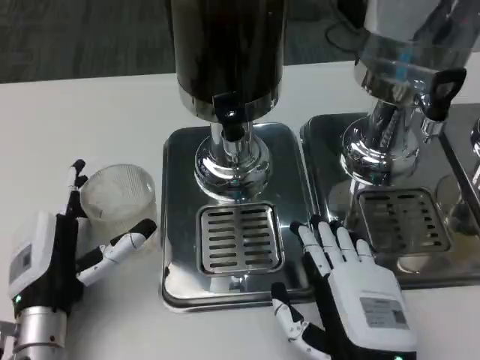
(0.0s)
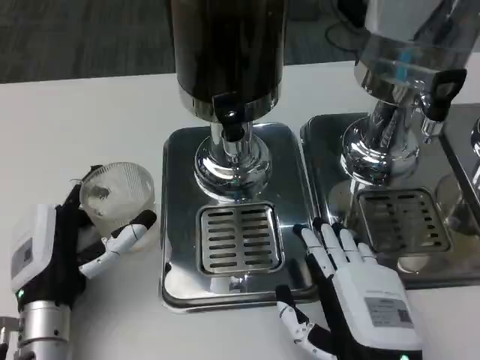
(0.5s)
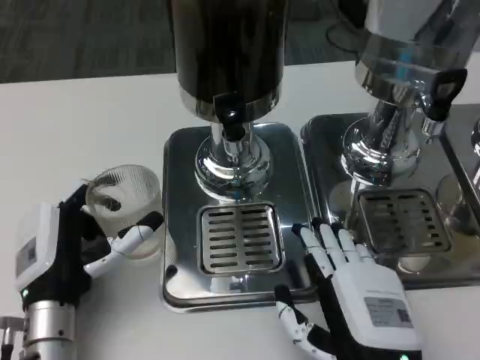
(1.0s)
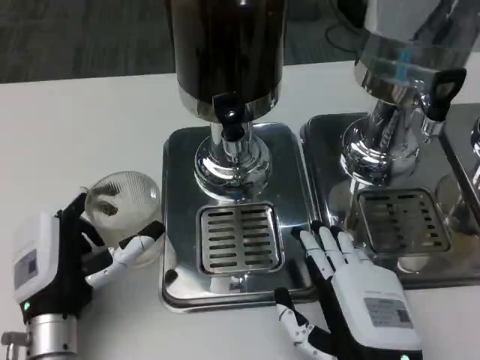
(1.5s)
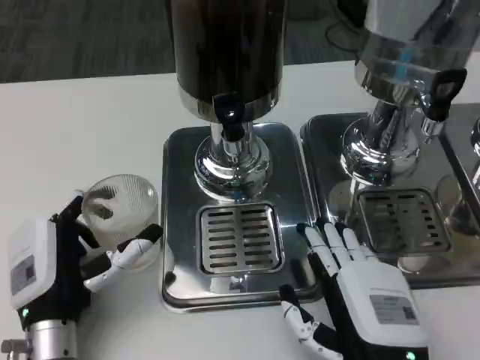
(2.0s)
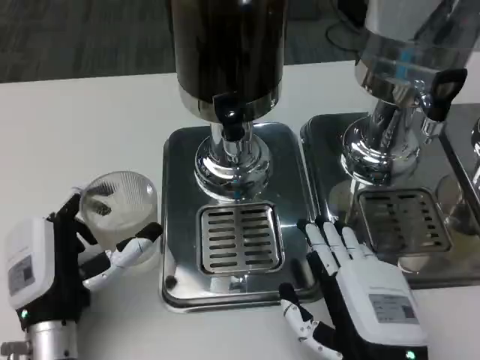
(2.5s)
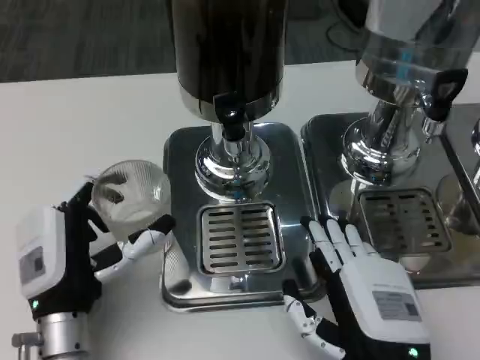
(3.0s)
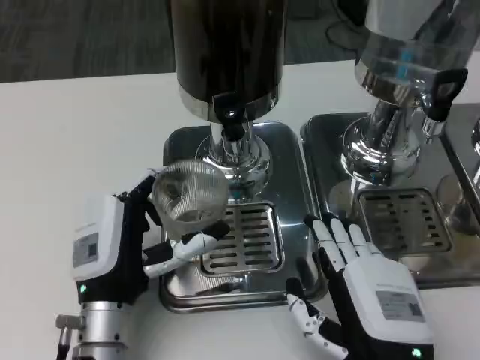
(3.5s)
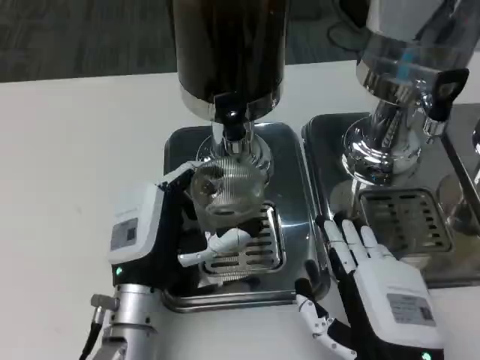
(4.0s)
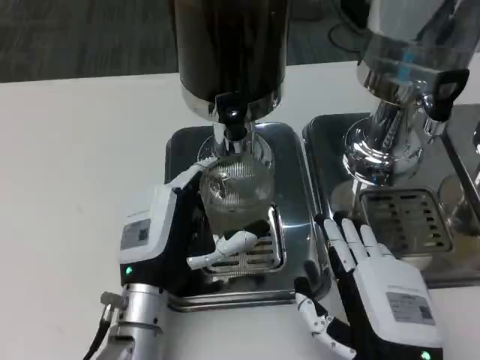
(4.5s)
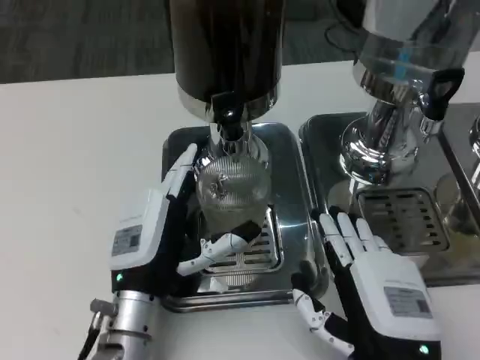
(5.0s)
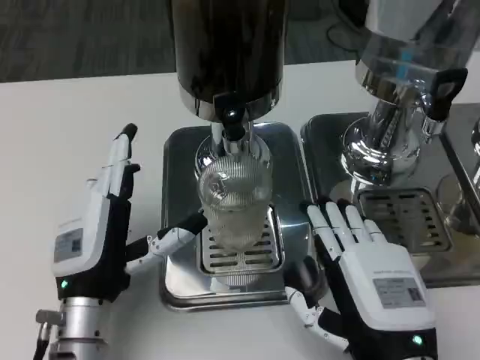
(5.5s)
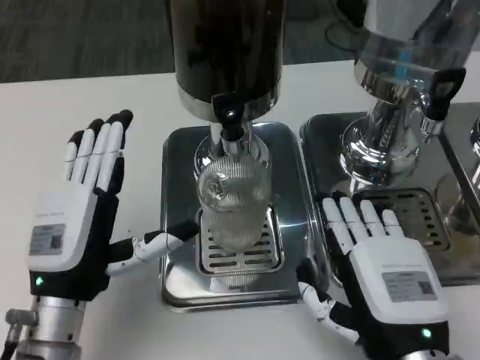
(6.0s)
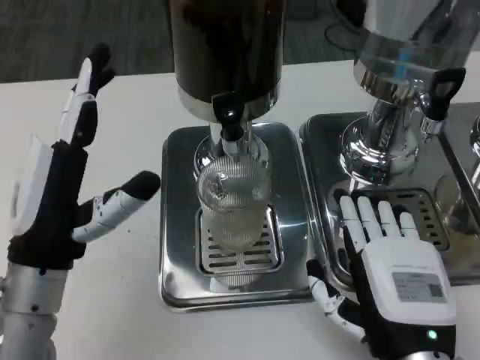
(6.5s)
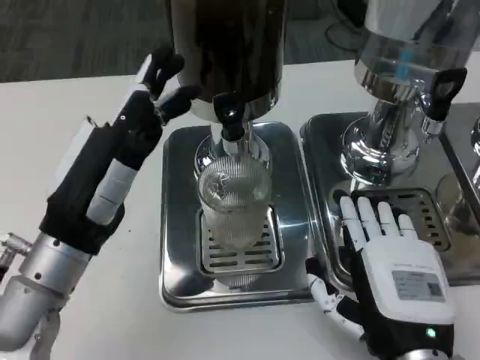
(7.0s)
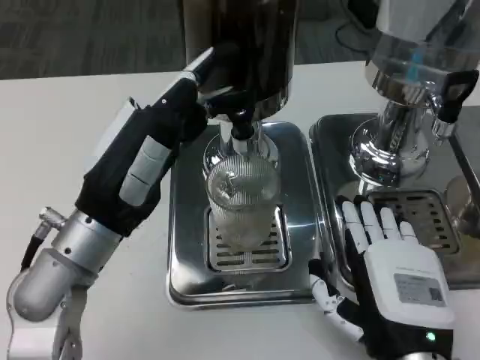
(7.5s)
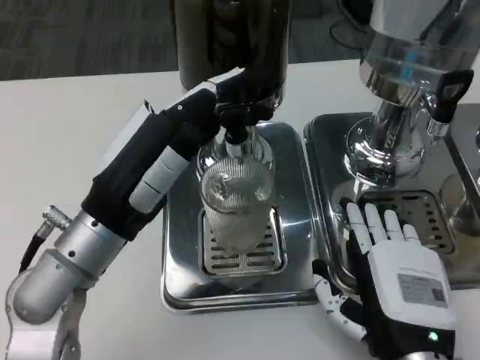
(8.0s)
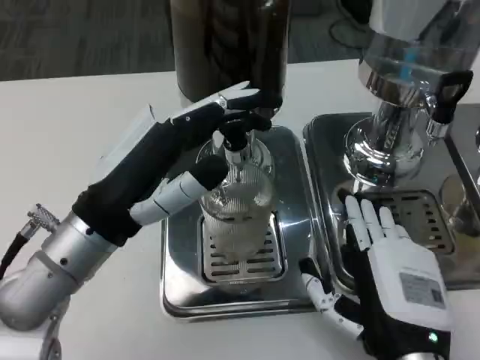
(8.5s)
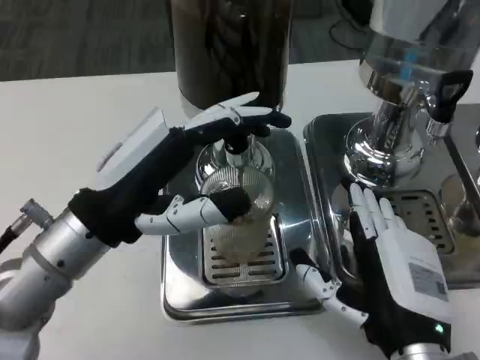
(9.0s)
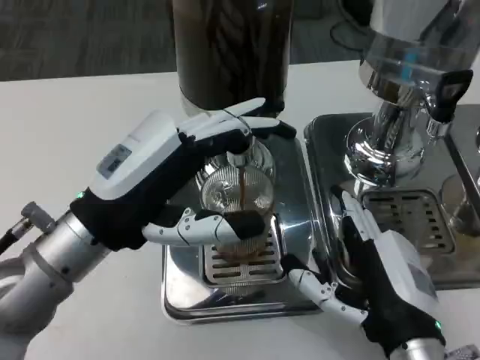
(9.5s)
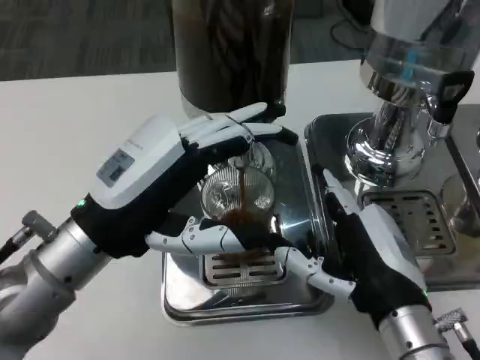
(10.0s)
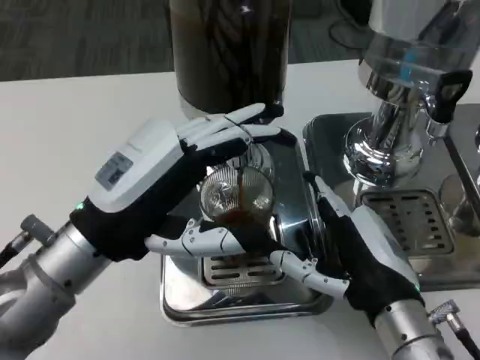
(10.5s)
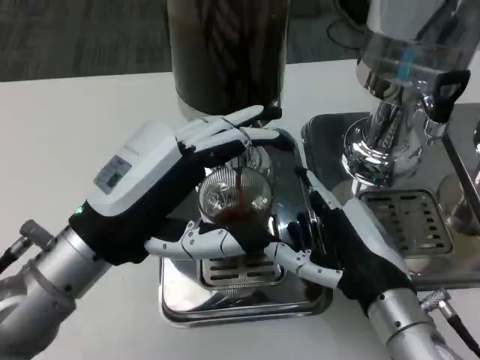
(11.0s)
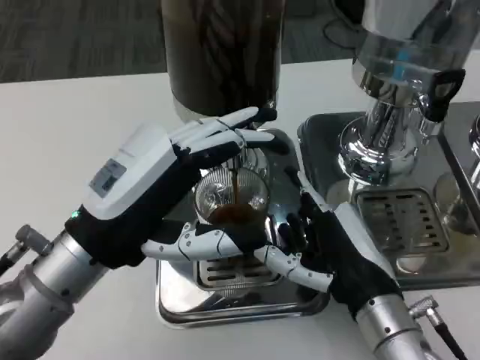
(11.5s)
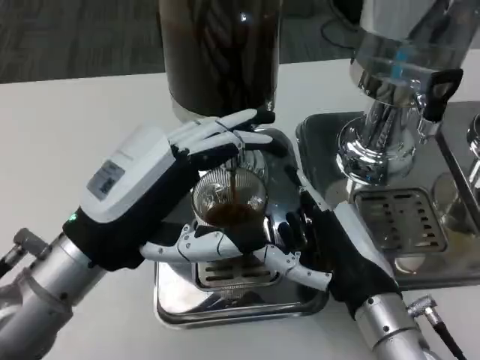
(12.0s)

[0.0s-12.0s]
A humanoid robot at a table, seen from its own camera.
Task of the whole recording: Grasp the cup under the faucet to collect the drink, then remove the cup.
0.0s to 2.0s: The hands make only small movements.
2.0s to 4.0s: The left hand goes about 5 cm to the right.
4.0s to 6.0s: The left hand moves to the left, about 5 cm.
6.0s to 8.0s: The left hand travels upward by about 10 cm.

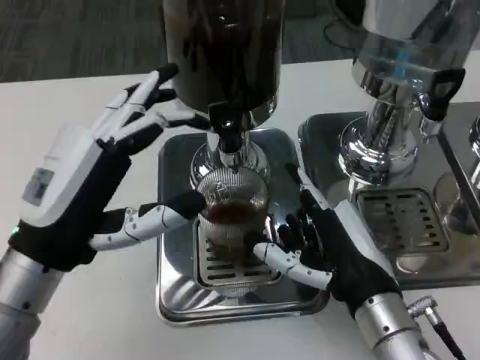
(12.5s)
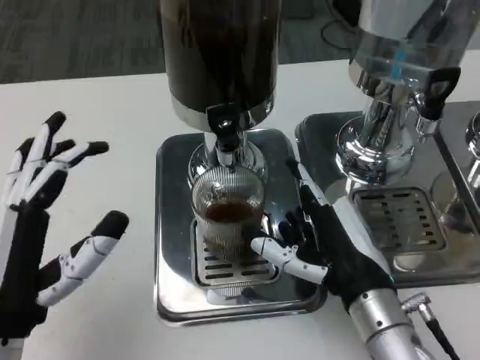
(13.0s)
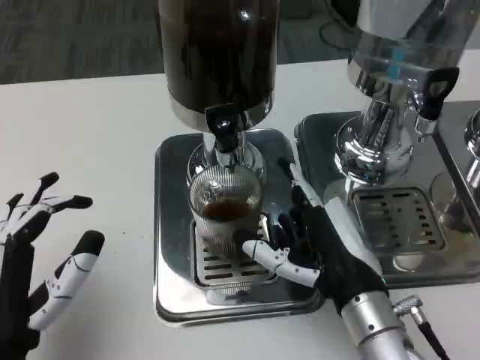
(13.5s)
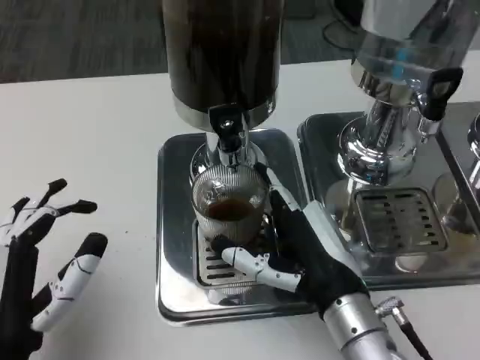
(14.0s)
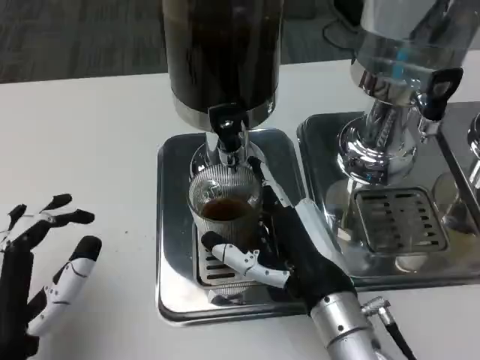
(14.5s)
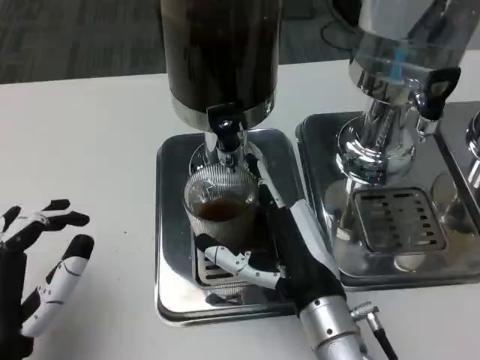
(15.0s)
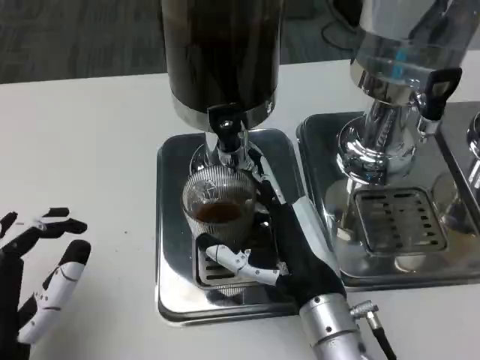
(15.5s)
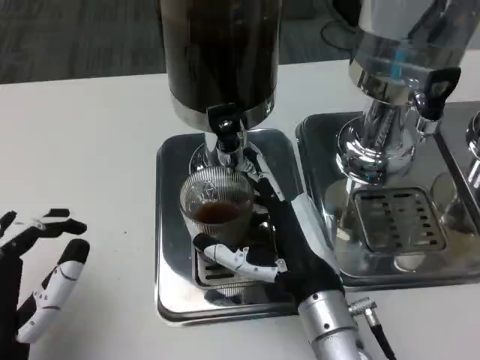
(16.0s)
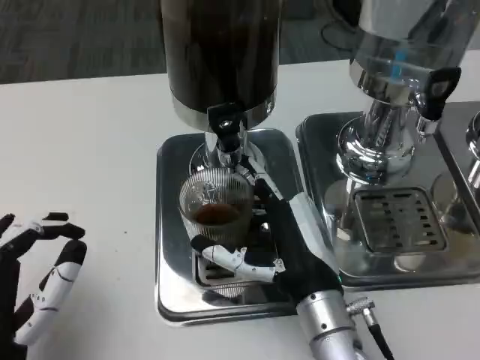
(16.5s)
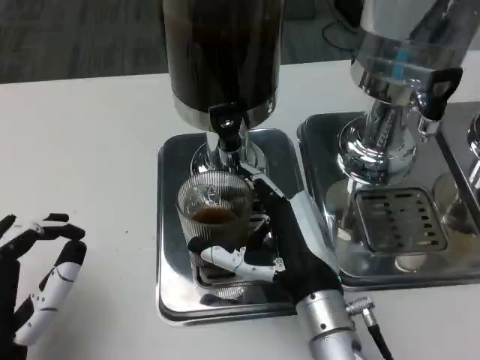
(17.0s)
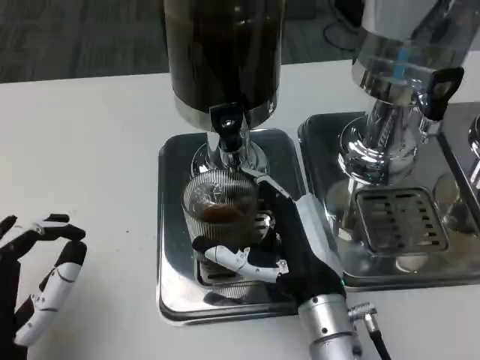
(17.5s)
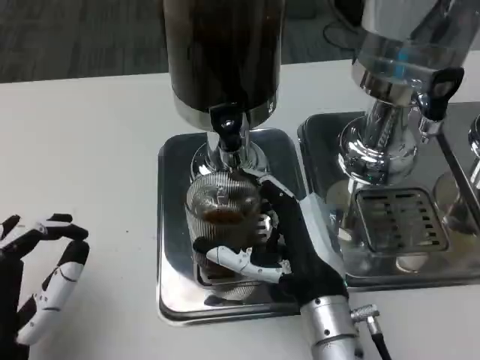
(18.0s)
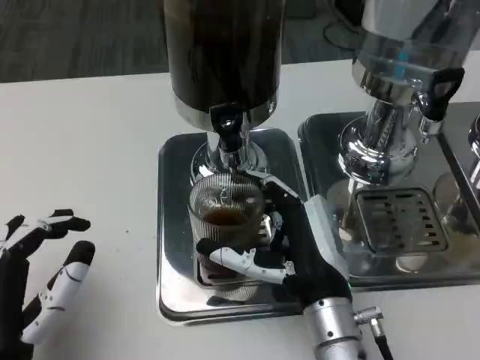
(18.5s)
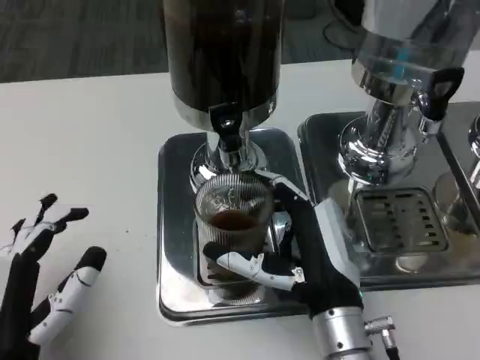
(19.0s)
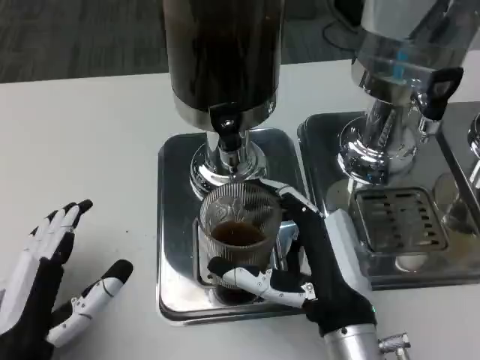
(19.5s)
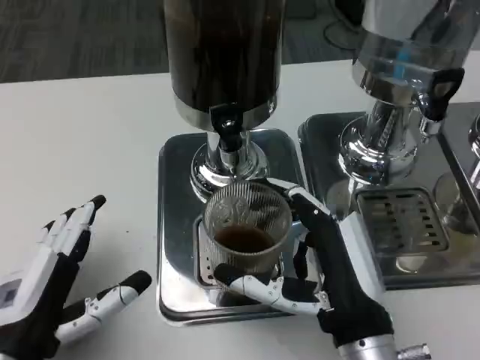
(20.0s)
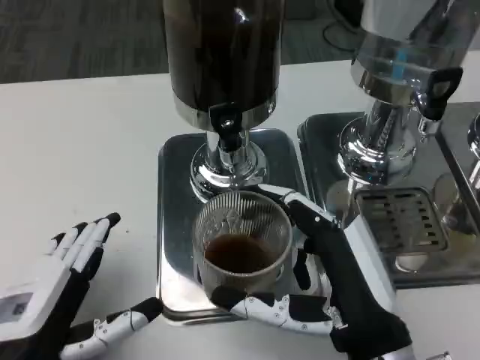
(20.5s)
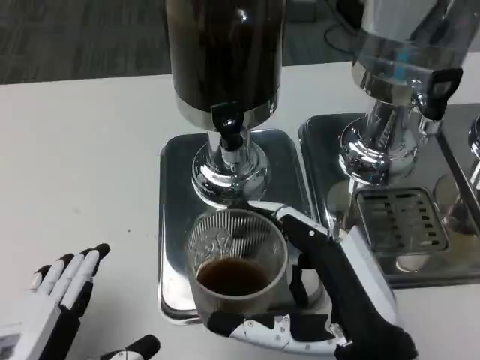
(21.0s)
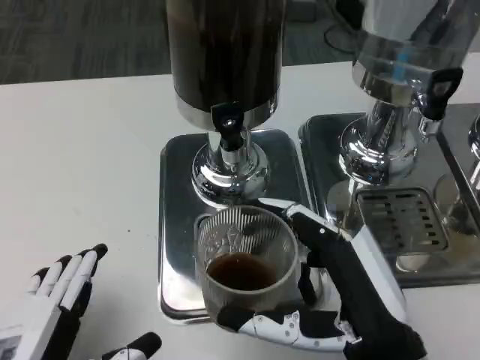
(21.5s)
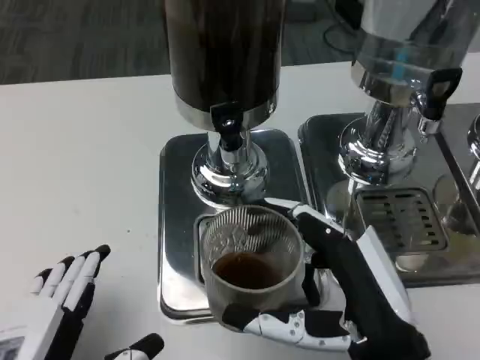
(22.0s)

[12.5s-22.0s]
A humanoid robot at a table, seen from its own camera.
Task of the whole recording: Grasp the cup under the faucet to collect the drink, then remove the cup.
12.5s to 14.5s: The left hand travels downward and backward by roughly 10 cm.
14.5s to 18.0s: The hands make only small movements.
18.0s to 20.0s: The right hand shifts by approximately 5 cm.
20.0s to 22.0s: The left hand moves backward, about 5 cm, while the right hand shifts by some 5 cm.

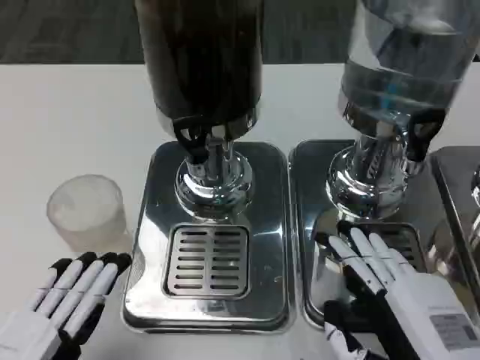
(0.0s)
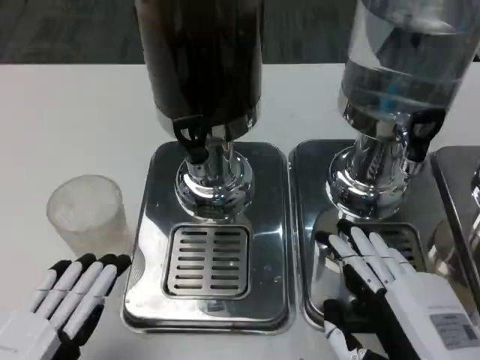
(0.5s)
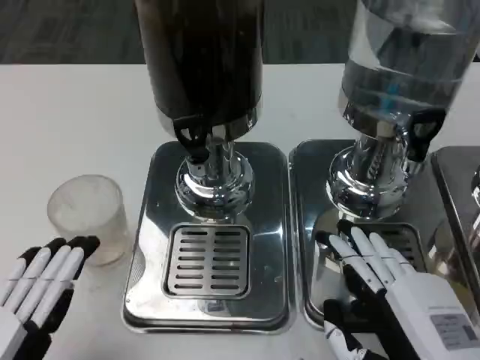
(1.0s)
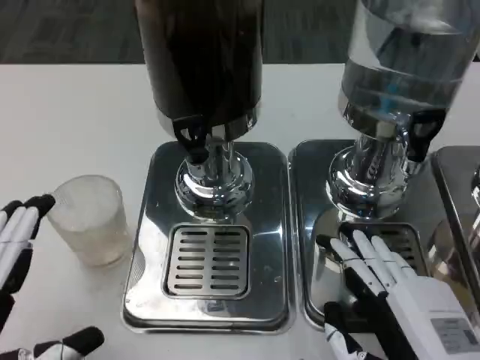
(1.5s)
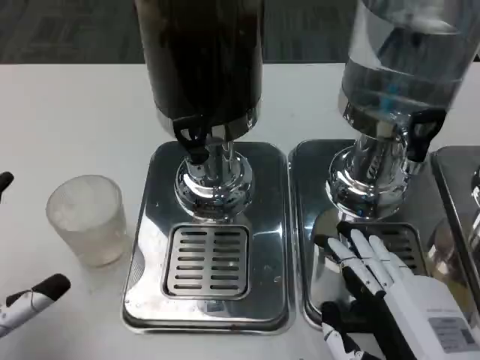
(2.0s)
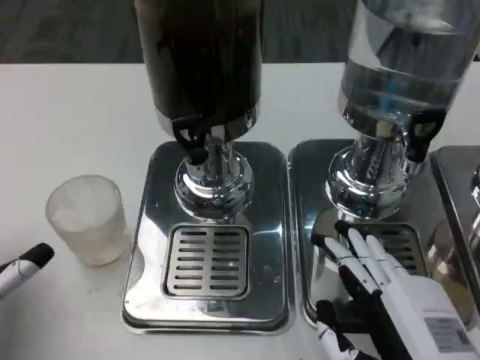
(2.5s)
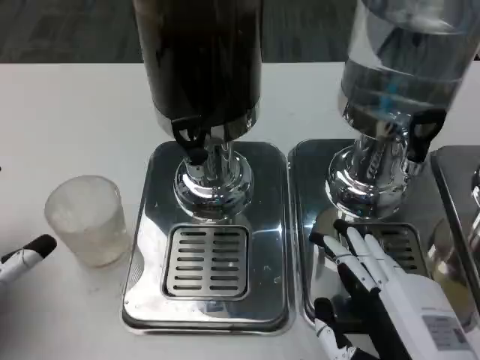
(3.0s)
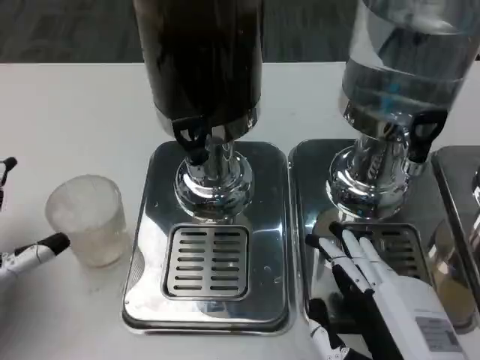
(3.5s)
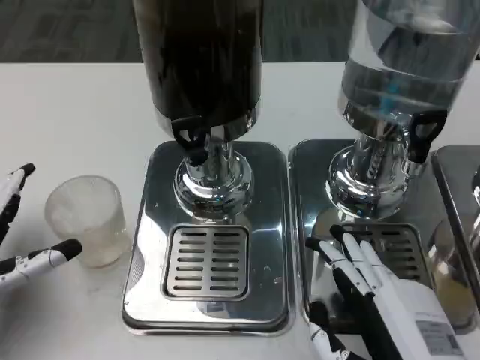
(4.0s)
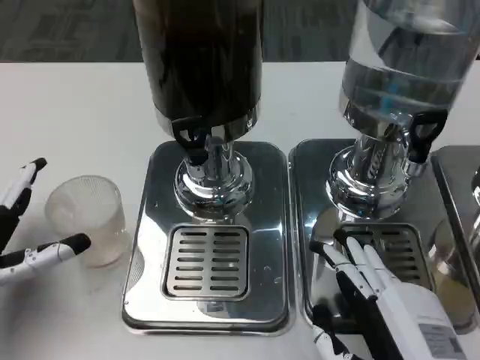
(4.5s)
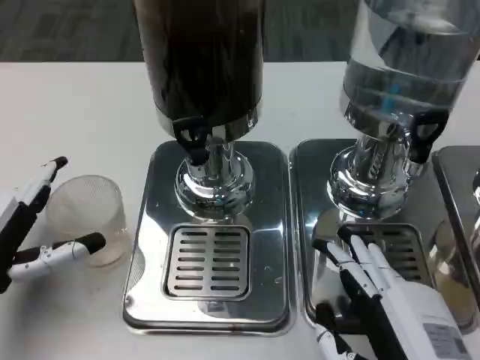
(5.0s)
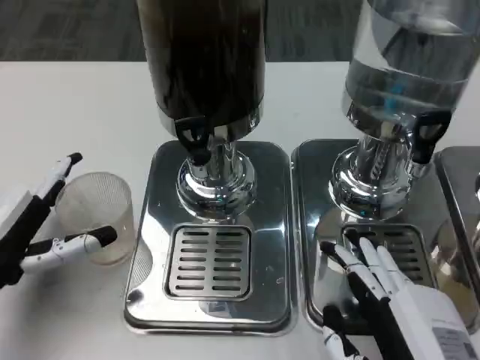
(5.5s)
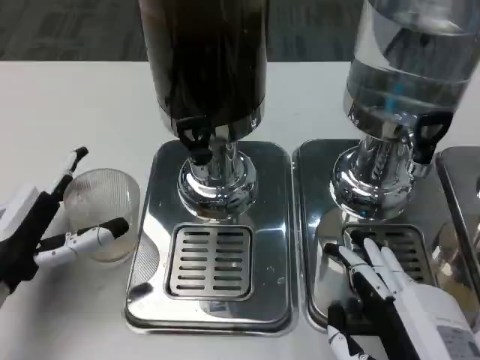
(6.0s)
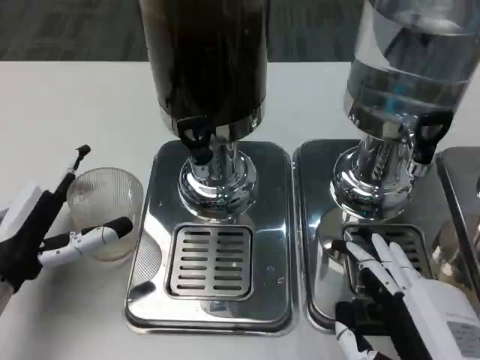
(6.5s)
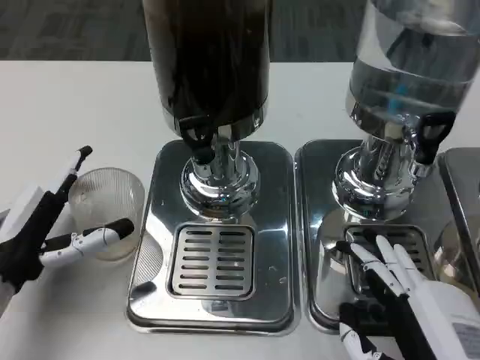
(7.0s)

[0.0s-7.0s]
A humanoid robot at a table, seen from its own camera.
Task of the whole recording: Grasp the cup under the faucet to collect the drink, then remove the cup.
0.0s to 2.0s: The left hand moves some 5 cm.
2.0s to 3.5s: The left hand is displaced forward by some 5 cm.
3.5s to 5.0s: The hands stay close to where they were, moving slightly.
